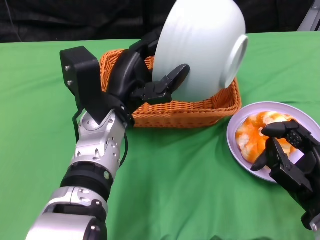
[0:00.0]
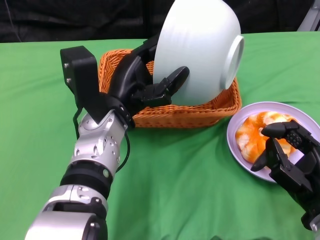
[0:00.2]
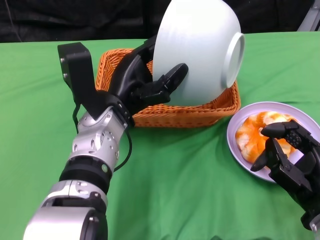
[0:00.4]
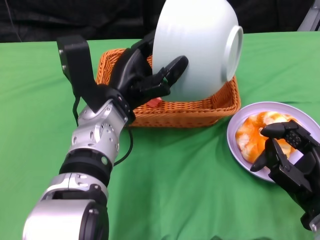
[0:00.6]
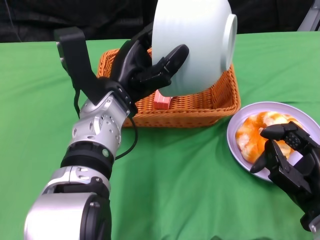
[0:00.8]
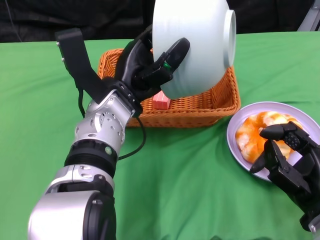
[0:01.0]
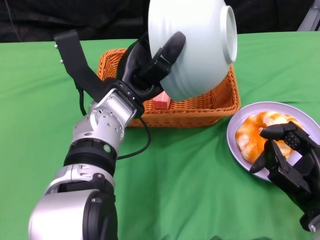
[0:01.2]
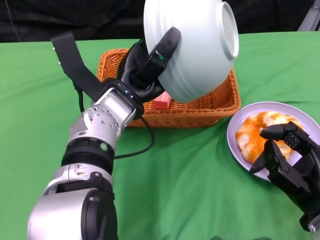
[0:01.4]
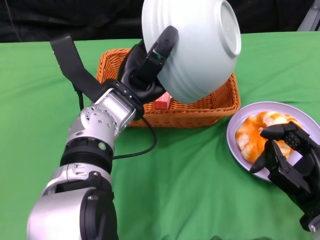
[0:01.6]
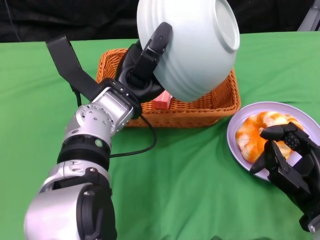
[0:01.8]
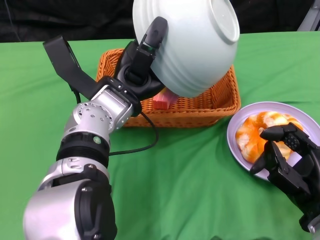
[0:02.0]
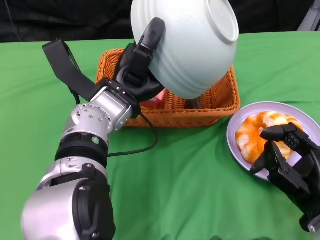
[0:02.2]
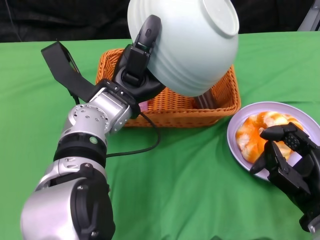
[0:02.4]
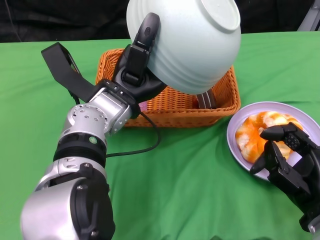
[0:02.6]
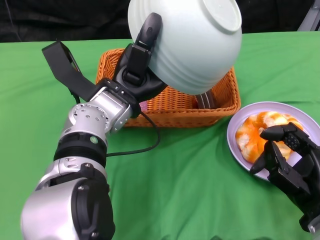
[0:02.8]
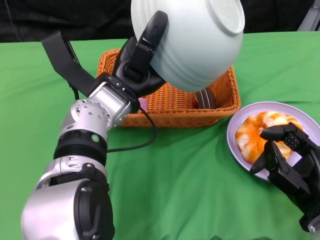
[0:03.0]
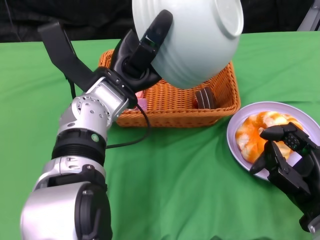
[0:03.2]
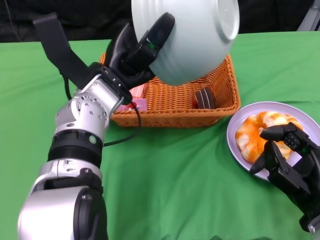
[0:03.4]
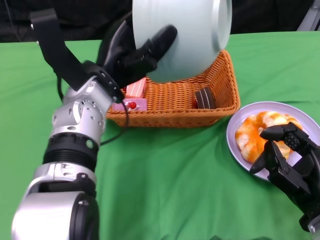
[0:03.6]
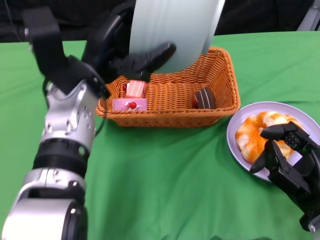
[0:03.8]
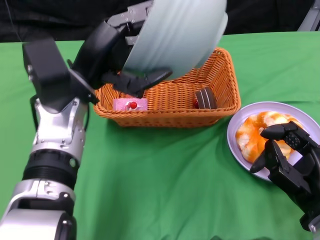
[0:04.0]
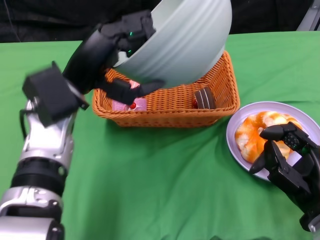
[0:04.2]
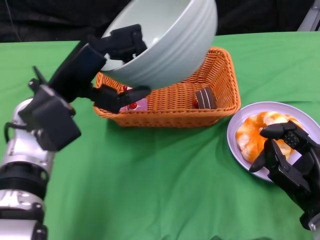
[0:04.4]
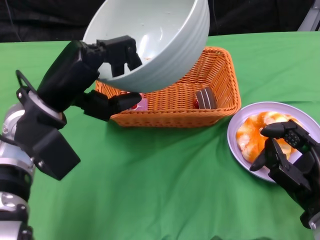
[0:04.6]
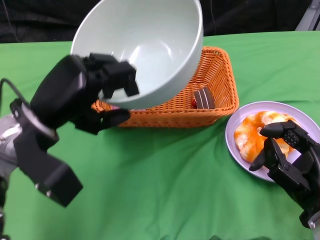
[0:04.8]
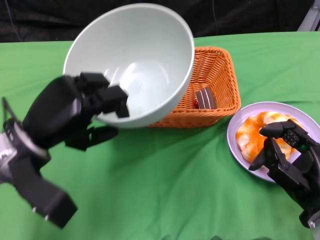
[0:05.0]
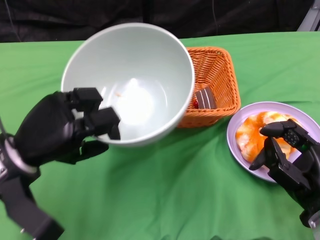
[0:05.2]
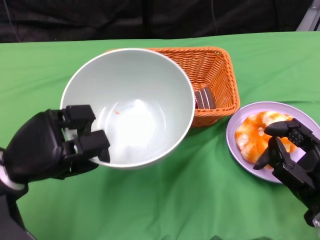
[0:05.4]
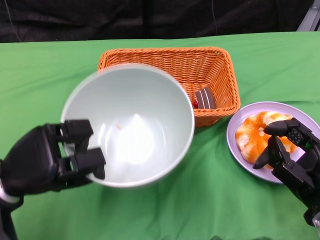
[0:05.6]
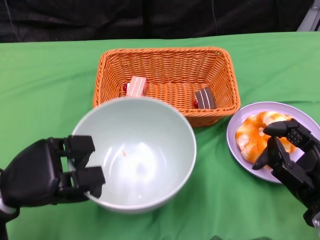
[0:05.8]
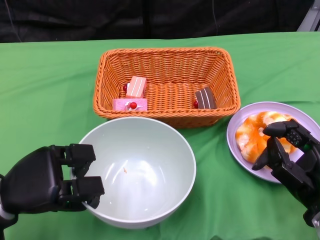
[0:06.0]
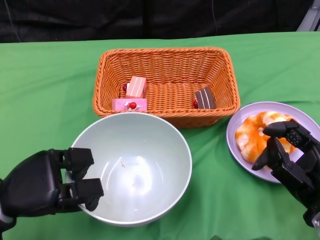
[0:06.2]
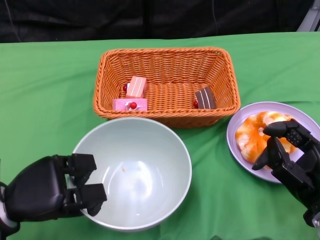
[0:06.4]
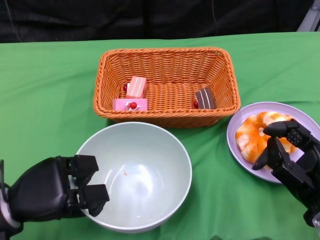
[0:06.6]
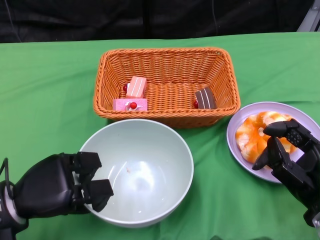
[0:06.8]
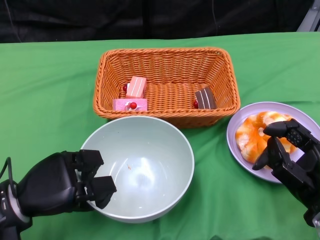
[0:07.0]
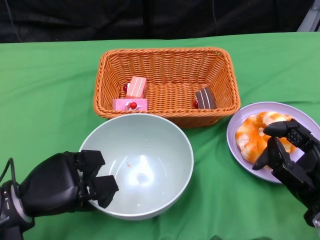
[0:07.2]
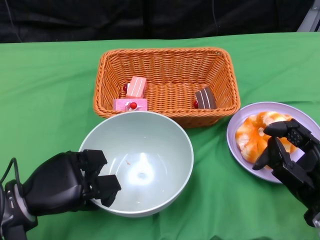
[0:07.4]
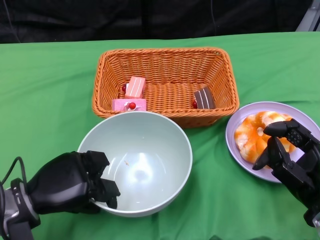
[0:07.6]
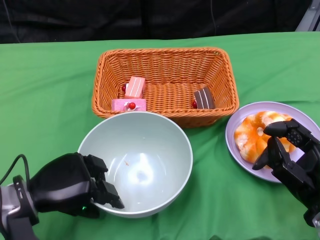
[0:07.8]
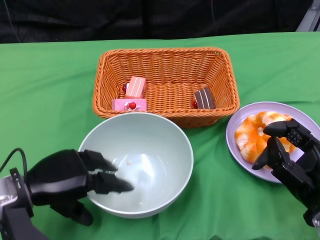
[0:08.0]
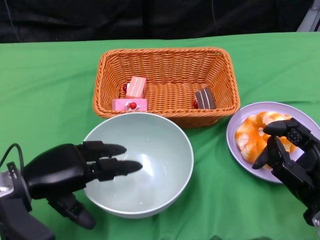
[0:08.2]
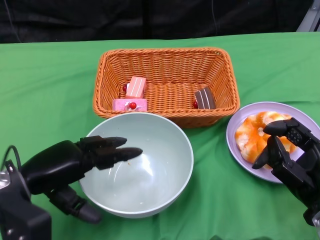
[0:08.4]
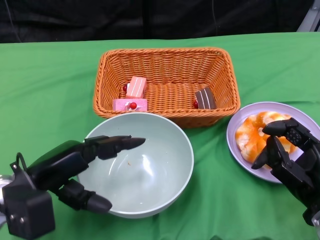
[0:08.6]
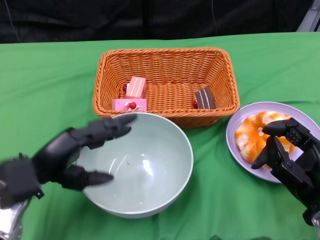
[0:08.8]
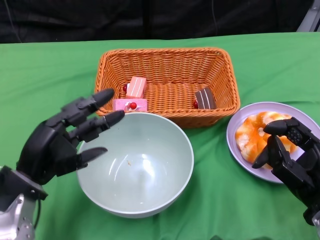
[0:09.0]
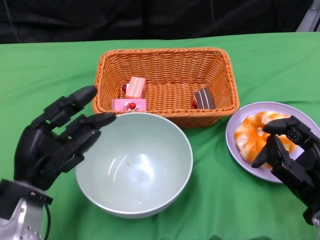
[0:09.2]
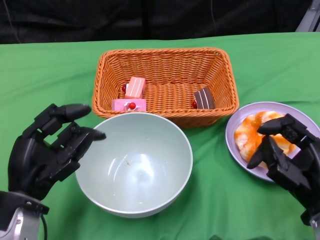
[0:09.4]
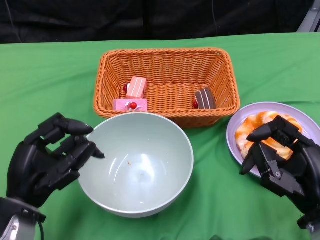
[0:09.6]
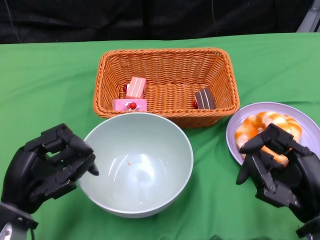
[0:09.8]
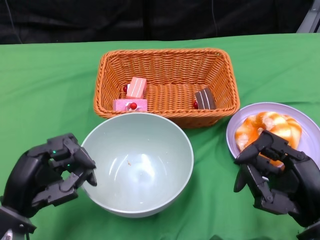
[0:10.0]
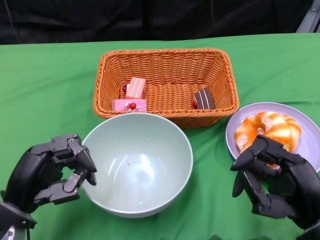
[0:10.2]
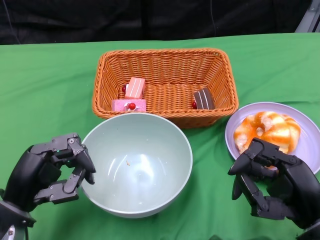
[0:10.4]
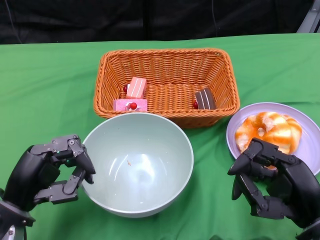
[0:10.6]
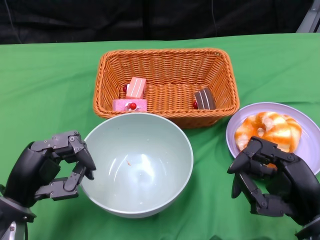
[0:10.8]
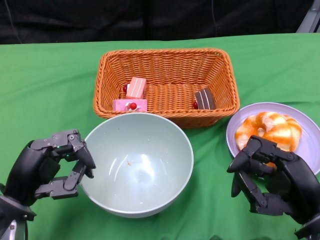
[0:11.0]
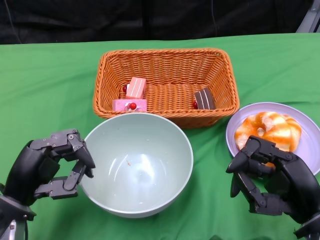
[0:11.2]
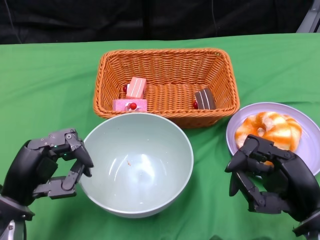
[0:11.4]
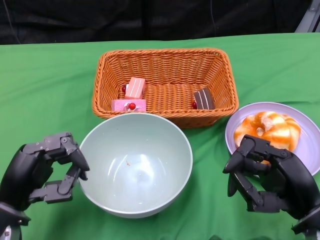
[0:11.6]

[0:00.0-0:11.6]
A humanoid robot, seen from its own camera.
Step, 0:00.0 to 0:03.6: Pour the cake into the basket with the left gripper.
Step, 0:03.8 to 0:08.2: Place the bowl on the table with the left gripper.
0:02.8 to 0:04.4: The left hand goes approximately 10 cm to the left.
0:04.4 to 0:05.8: The left hand travels downward, to the left and backward by roughly 15 cm.
0:05.8 to 0:07.2: There are only small adjustments of the hands.
0:08.8 to 0:10.2: The left hand moves about 5 cm.
0:10.2 to 0:11.6: The hands move only a little.

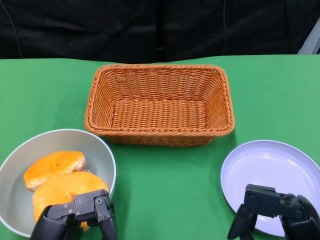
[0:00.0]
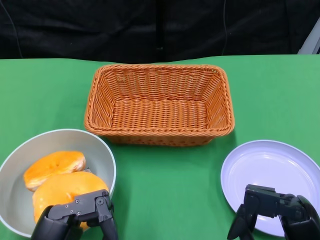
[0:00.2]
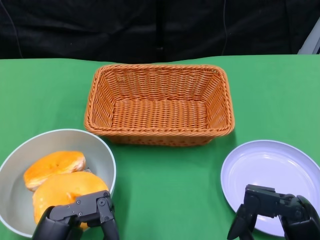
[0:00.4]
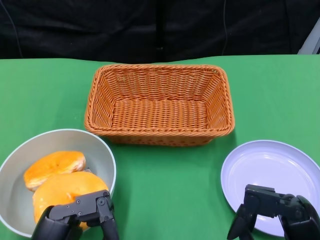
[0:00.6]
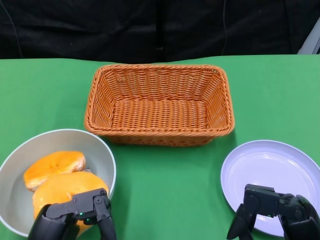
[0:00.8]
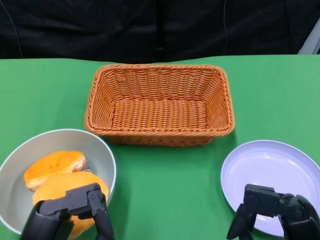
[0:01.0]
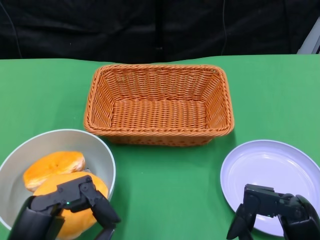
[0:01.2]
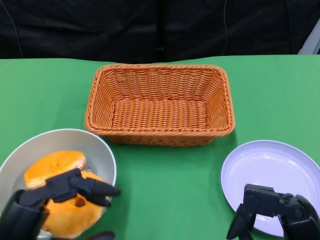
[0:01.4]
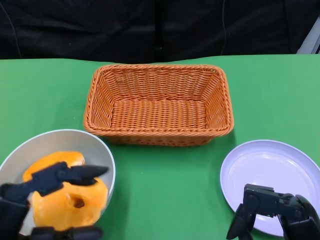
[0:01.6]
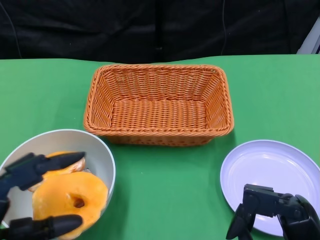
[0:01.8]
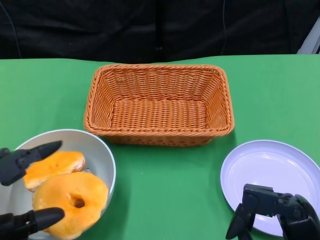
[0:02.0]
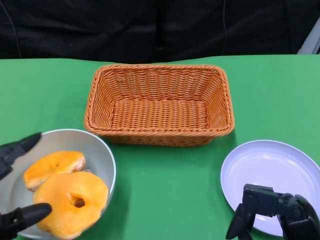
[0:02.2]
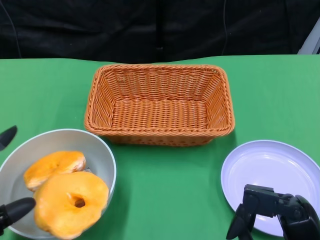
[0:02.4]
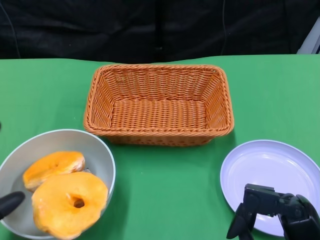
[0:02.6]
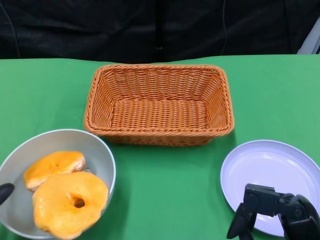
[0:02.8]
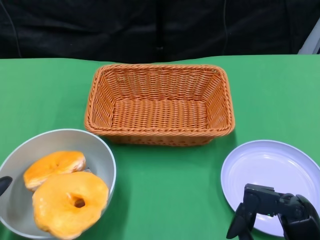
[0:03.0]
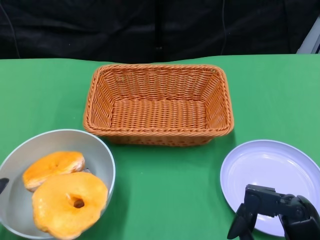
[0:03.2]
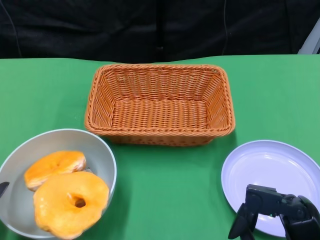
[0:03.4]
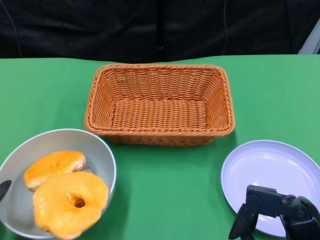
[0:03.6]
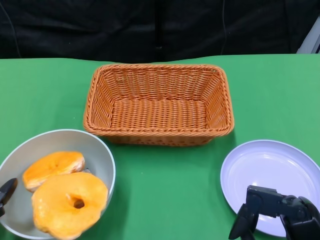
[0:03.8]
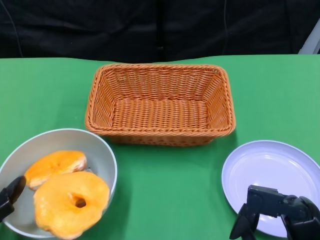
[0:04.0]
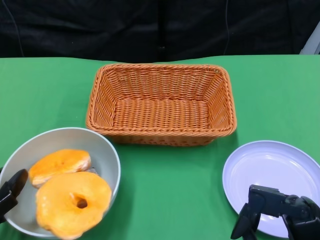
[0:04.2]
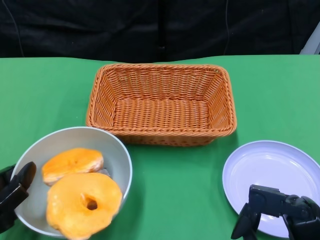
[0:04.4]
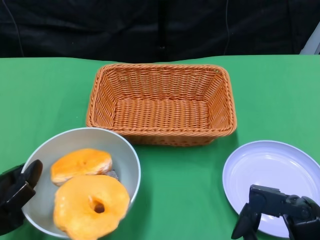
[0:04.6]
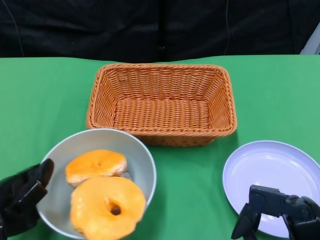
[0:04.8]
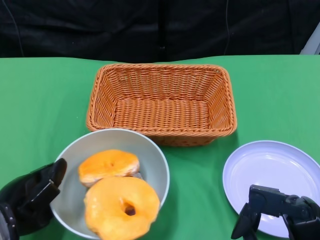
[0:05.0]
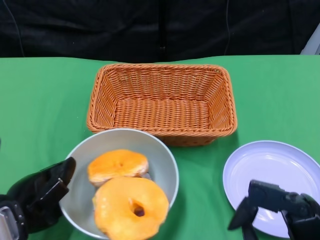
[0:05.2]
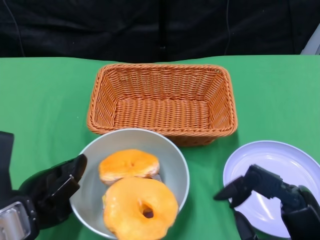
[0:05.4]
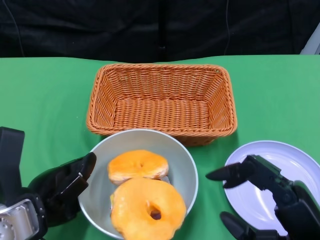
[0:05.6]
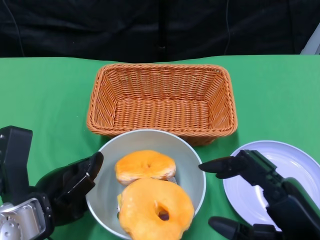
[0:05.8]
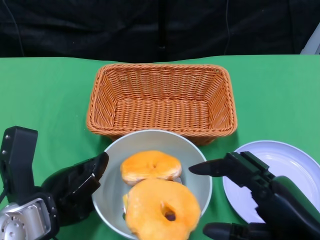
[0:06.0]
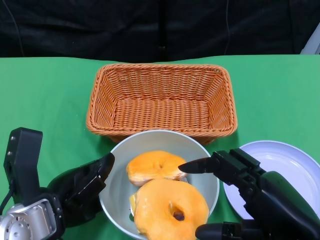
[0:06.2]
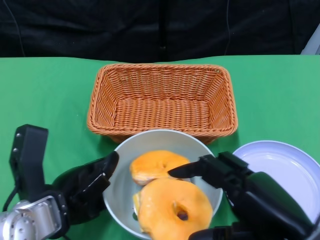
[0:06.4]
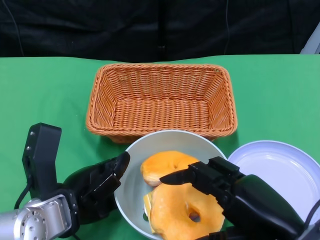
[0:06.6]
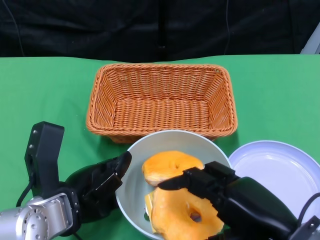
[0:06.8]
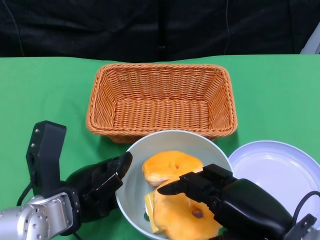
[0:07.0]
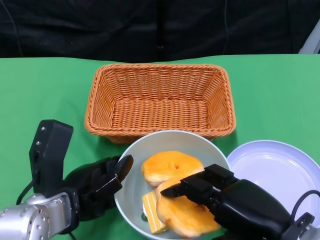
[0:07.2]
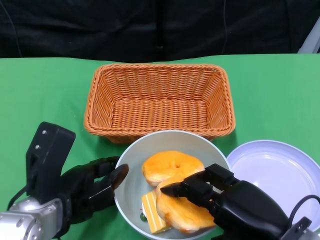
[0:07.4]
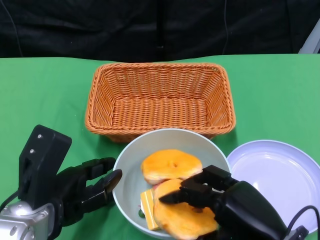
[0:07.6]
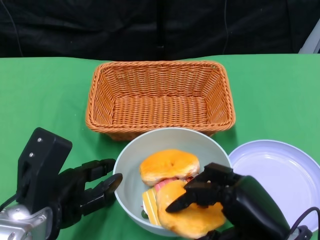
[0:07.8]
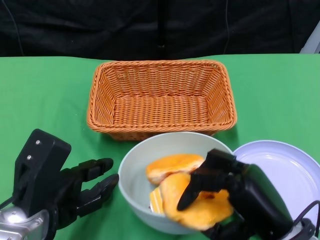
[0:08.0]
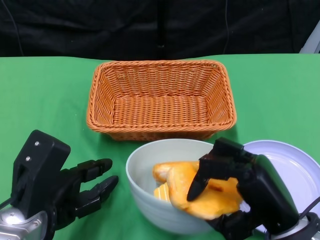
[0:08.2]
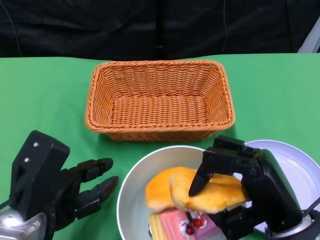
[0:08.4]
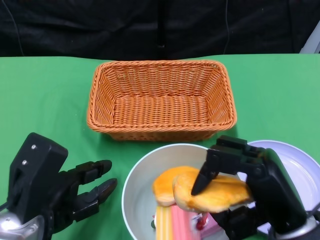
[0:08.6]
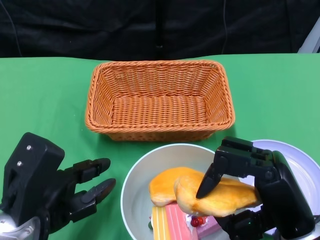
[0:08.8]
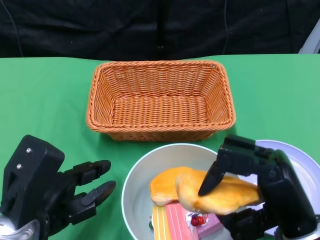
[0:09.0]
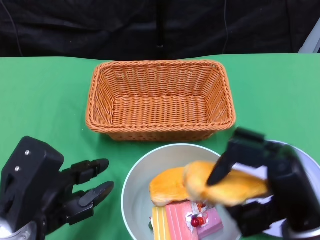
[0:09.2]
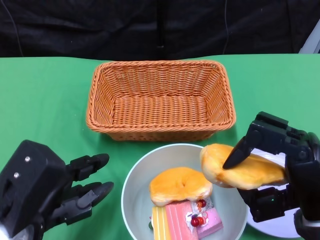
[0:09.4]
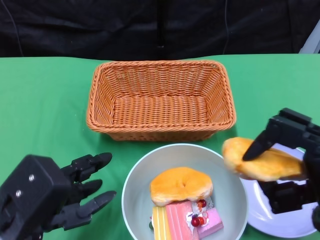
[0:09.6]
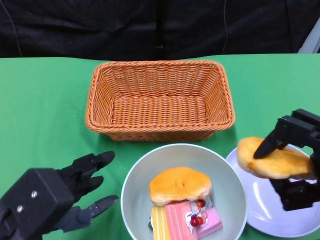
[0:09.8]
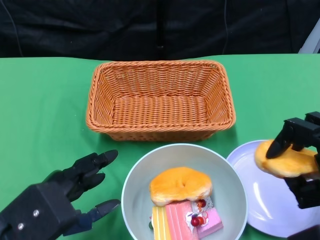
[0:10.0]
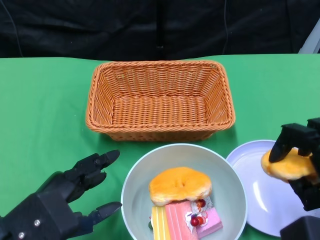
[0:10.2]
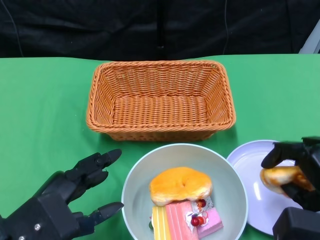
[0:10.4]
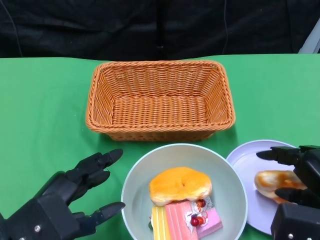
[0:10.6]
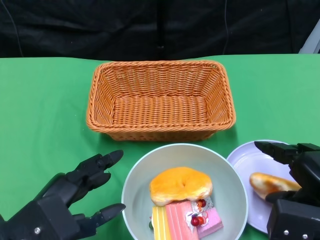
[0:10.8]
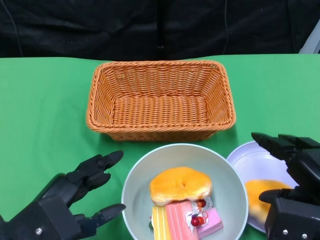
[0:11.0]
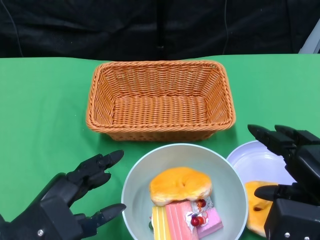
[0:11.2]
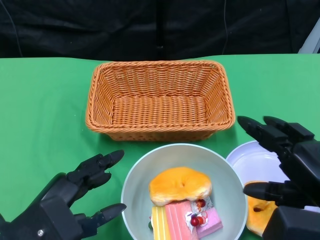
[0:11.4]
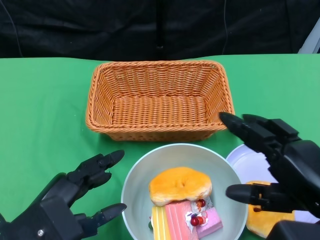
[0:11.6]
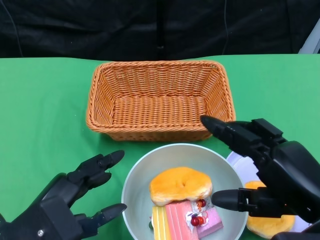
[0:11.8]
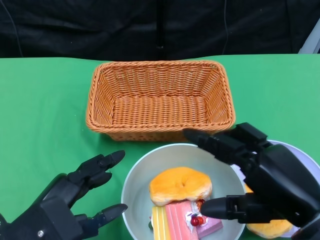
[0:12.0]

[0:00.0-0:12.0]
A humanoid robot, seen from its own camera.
Step, 0:00.0 to 0:06.6: Push the bowl to the center of the table using the left gripper.
0:01.6 to 0:03.0: The left hand goes roughly 5 cm to the left.
0:03.0 to 0:04.4: The left hand heads forward, covering approximately 5 cm.
0:04.4 to 0:06.0: The left hand is displaced to the right by roughly 10 cm.
0:06.0 to 0:07.6: The right hand changes place by about 5 cm.
0:09.0 to 0:10.4: The right hand goes roughly 10 cm to the right.
0:10.4 to 0:12.0: The right hand travels to the left and upward by approximately 10 cm.
